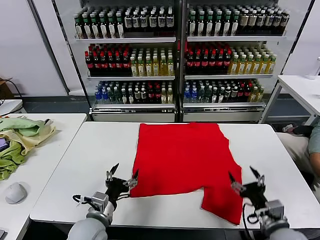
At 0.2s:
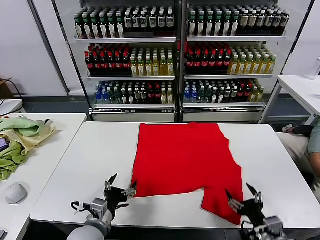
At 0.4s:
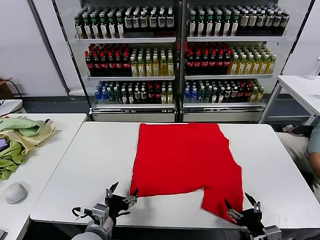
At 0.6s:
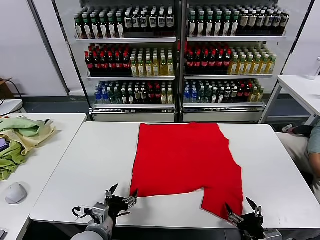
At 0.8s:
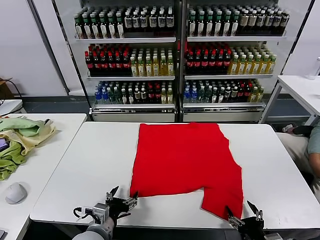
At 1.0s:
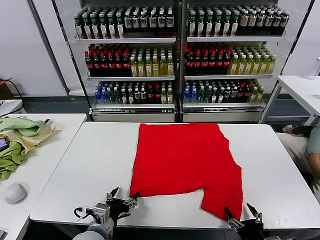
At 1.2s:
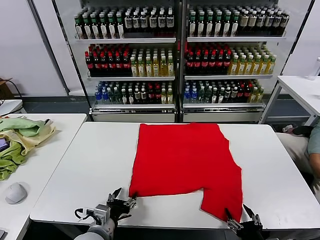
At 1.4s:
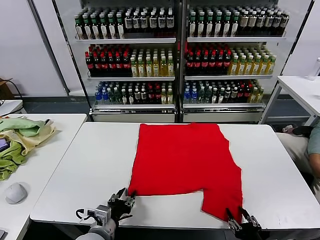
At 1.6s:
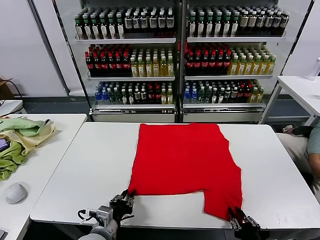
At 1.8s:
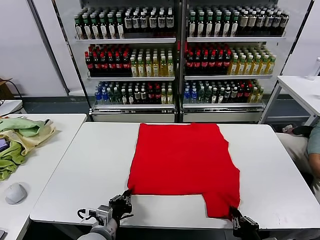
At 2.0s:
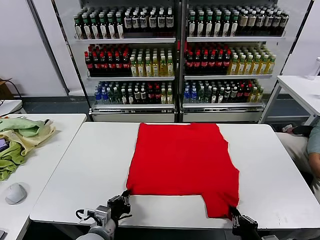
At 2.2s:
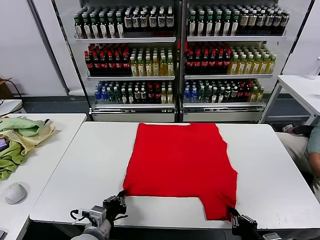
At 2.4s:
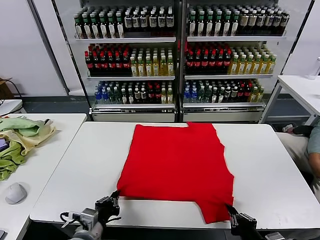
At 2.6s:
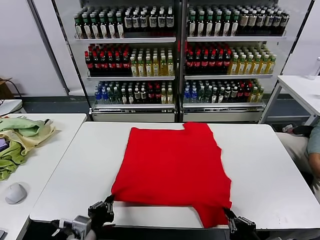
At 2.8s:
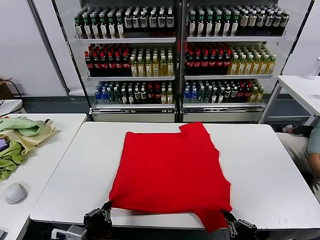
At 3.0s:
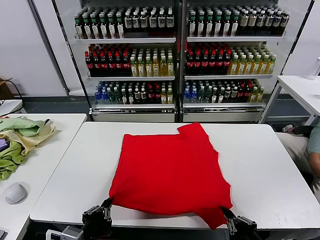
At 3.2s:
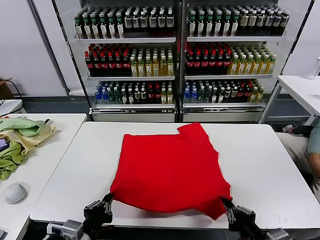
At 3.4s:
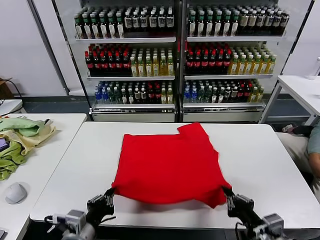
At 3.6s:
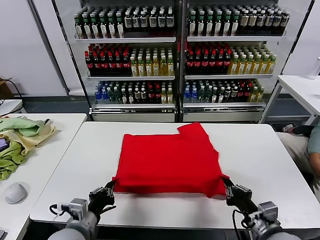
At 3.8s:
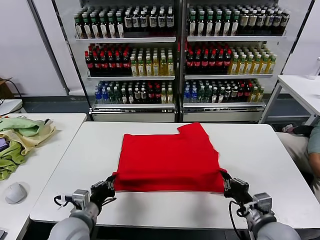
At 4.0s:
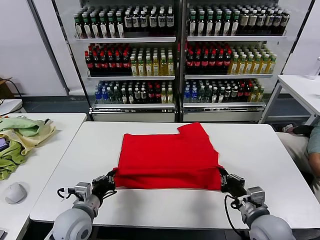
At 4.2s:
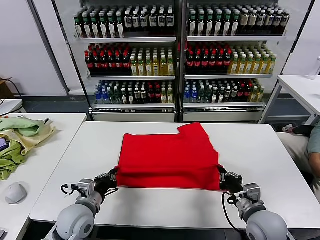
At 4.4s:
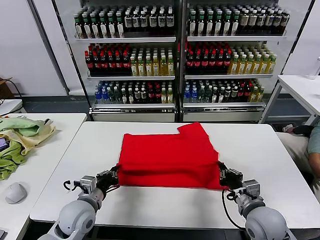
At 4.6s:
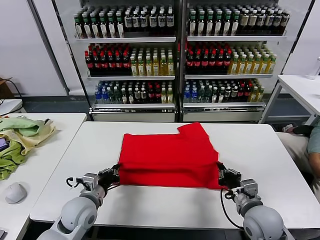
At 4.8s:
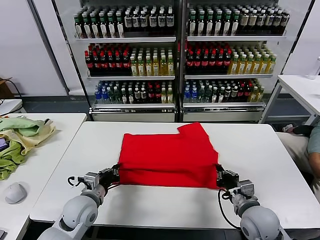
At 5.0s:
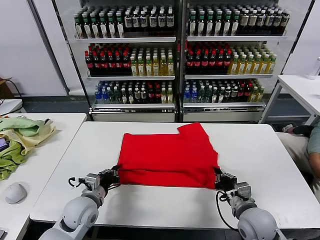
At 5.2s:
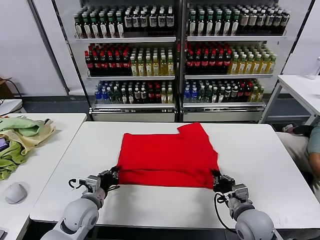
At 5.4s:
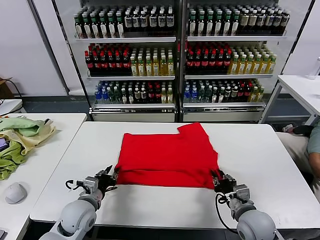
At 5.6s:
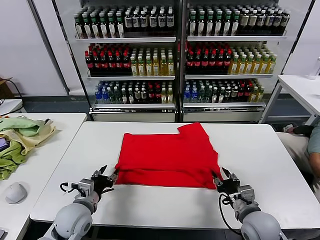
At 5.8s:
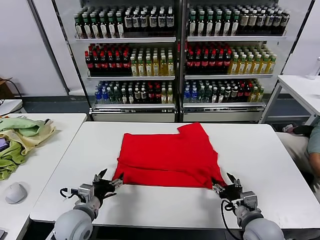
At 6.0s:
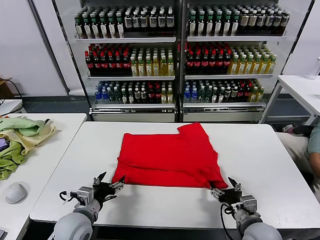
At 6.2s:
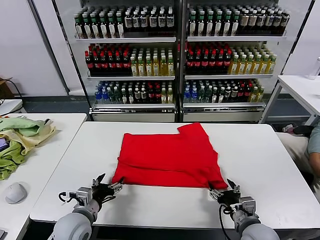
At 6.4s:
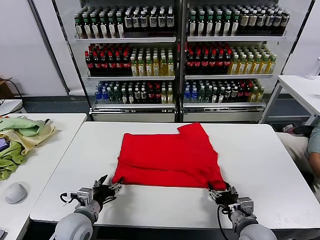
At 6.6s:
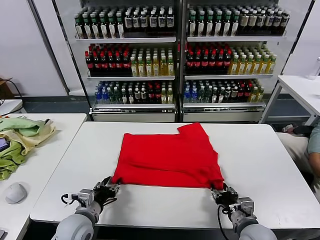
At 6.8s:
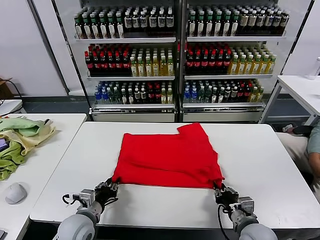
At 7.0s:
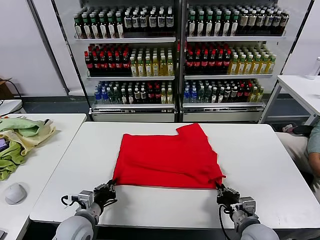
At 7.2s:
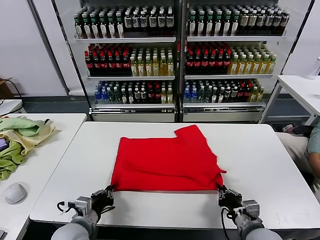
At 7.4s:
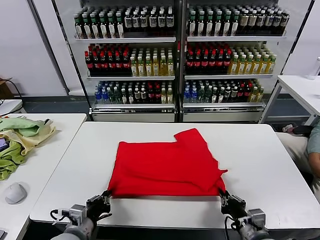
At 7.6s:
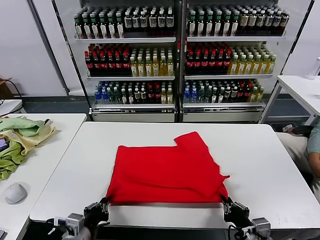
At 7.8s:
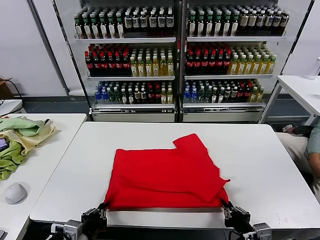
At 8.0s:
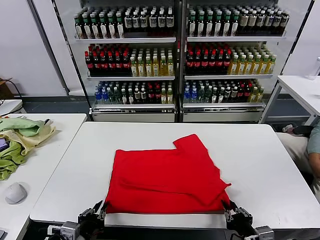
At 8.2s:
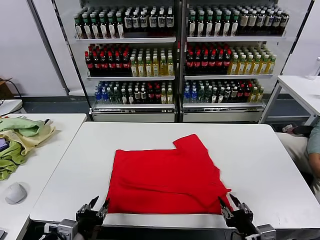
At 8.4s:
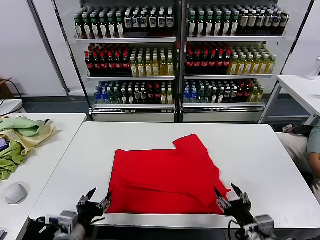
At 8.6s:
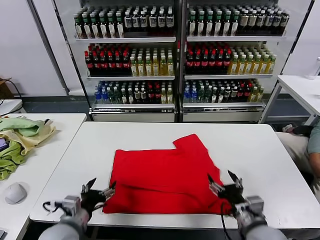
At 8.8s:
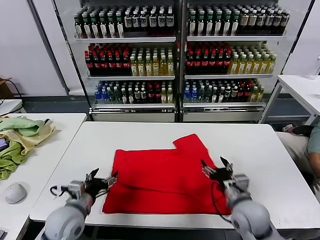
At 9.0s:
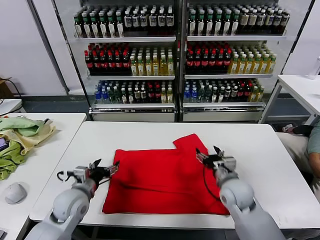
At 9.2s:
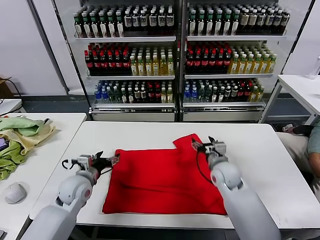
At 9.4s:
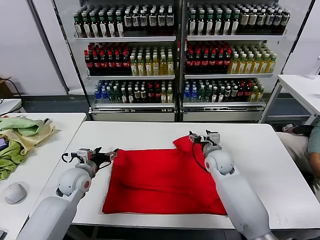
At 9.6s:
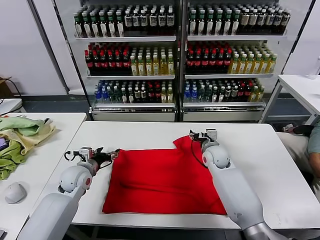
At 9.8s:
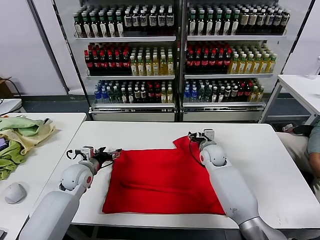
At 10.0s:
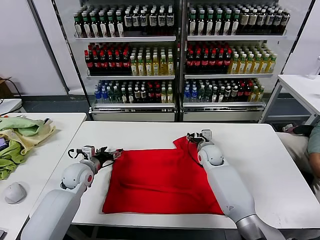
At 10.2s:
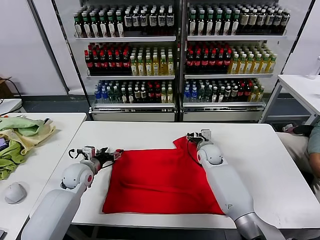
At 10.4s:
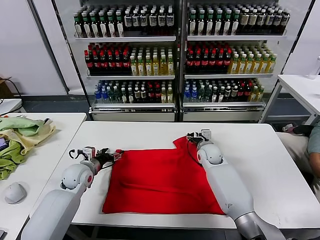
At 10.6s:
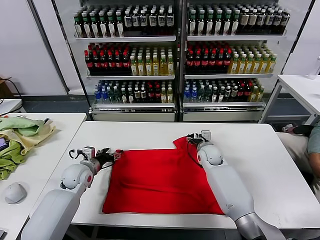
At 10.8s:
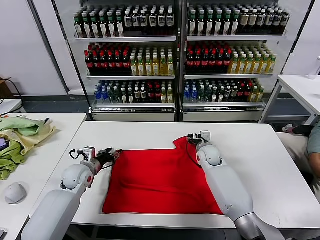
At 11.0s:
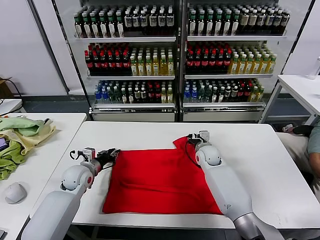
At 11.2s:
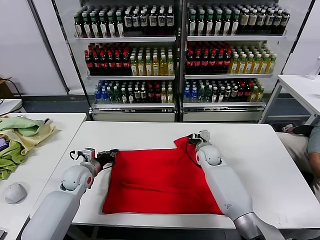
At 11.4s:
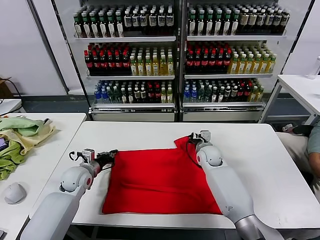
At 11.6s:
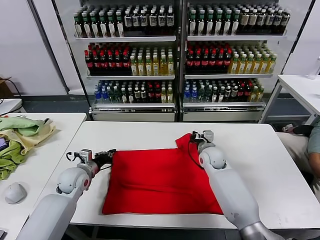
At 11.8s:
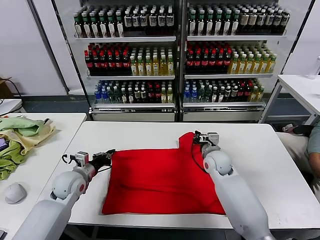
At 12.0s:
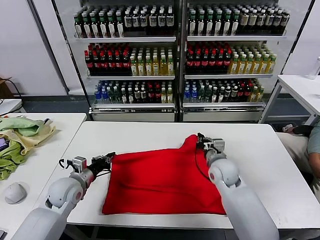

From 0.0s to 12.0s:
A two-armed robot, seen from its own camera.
Task of the whole recording: fold and organize the clothes.
Step, from 0.0s to 2.0s: use both grippers simultaneously to clamp the lower edge of the clothing fabric.
Step, from 2.2s to 5.4s: use both grippers to drag the lower edge of the fabric forward and fold it over the upper edge.
Step, from 5.6s to 8.0s: Drag the clothes downward with both gripper.
Step, from 8.2s to 11.2s: use both grippers simultaneously to clamp the upper edge of the clothing fabric.
From 1.6s to 3.0s: The right gripper heads upward, covering about 10 cm, while the left gripper is displaced upward and backward by approximately 15 cm.
From 3.0s to 4.4s: The right gripper goes roughly 15 cm forward, while the left gripper shifts about 20 cm forward and downward.
From 4.4s to 6.0s: The right gripper shifts by about 5 cm, and opens up; the left gripper opens up.
From 6.0s to 7.6s: The two grippers go approximately 10 cm backward. The left gripper closes up. Meanwhile the right gripper closes up.
From 7.6s to 9.0s: The right gripper travels forward by some 25 cm, and opens its fingers. Meanwhile the left gripper goes about 15 cm forward, and opens.
From 9.0s to 10.4s: The grippers both shift forward by approximately 15 cm.
From 10.4s to 12.0s: The right gripper is displaced backward by approximately 15 cm, and closes, while the left gripper is displaced backward by approximately 5 cm, and closes.

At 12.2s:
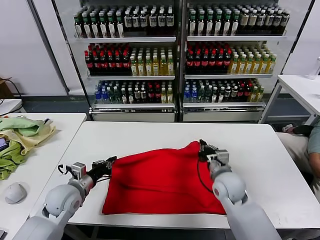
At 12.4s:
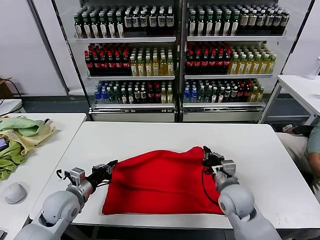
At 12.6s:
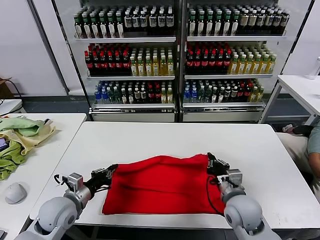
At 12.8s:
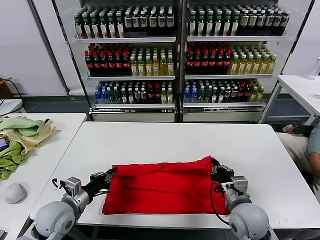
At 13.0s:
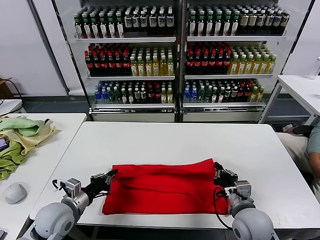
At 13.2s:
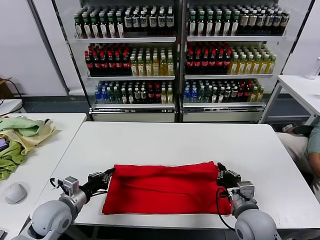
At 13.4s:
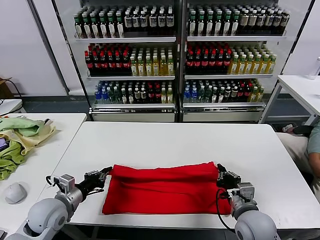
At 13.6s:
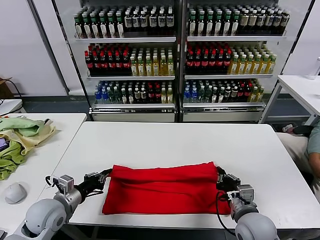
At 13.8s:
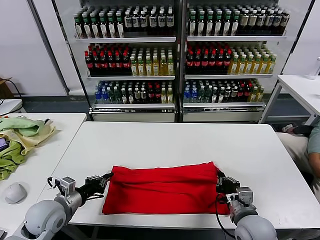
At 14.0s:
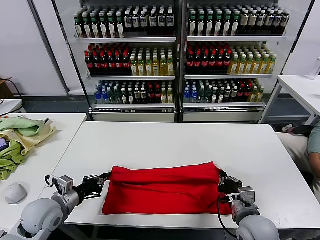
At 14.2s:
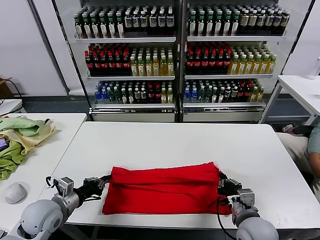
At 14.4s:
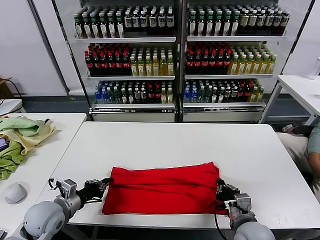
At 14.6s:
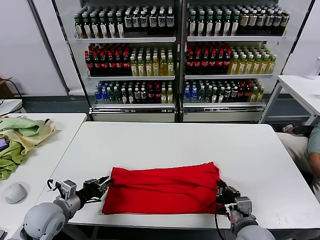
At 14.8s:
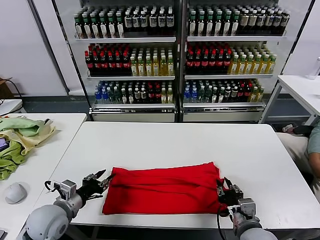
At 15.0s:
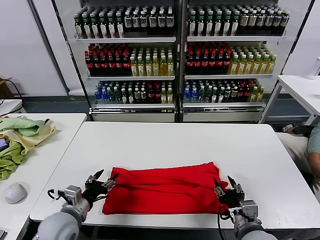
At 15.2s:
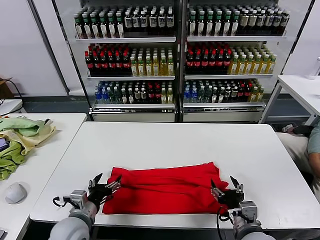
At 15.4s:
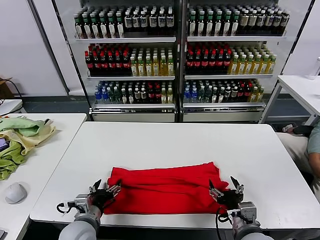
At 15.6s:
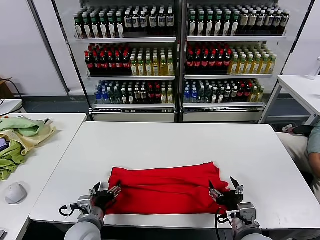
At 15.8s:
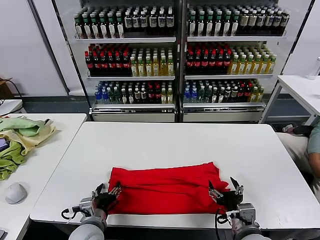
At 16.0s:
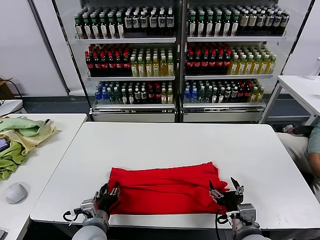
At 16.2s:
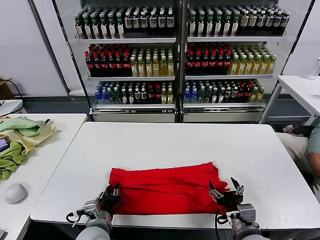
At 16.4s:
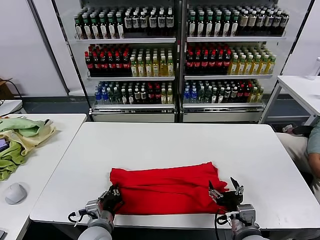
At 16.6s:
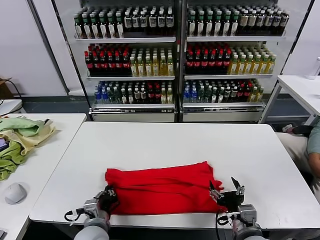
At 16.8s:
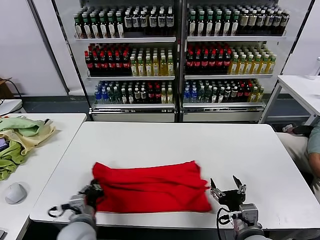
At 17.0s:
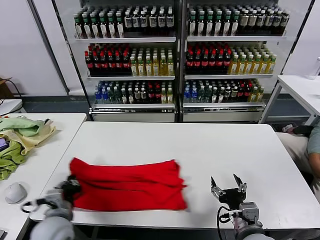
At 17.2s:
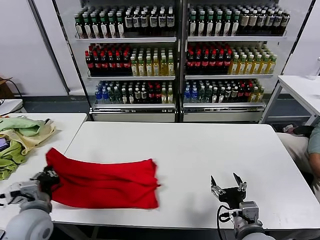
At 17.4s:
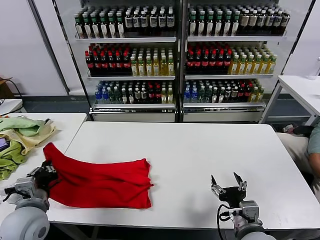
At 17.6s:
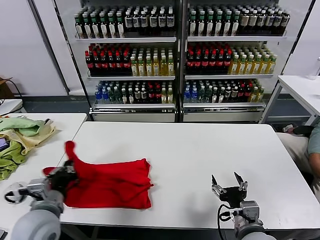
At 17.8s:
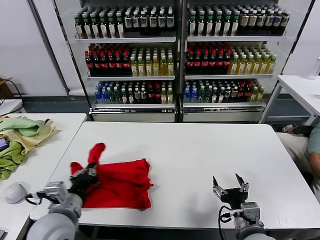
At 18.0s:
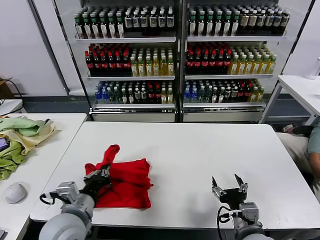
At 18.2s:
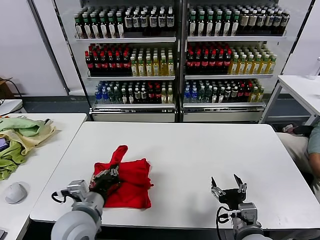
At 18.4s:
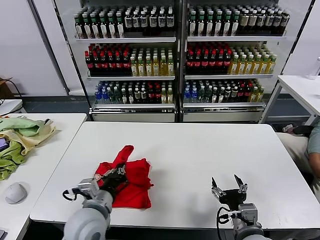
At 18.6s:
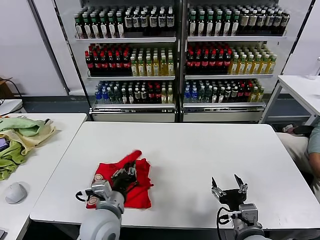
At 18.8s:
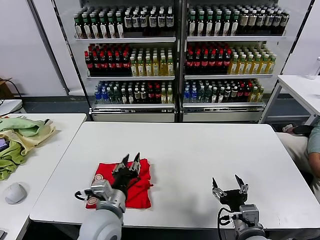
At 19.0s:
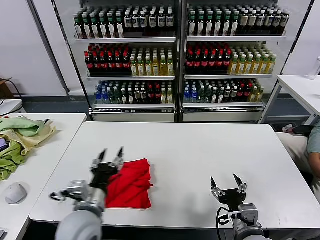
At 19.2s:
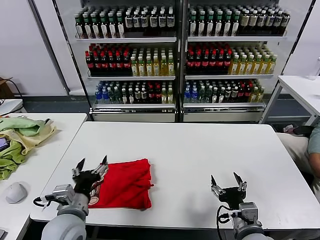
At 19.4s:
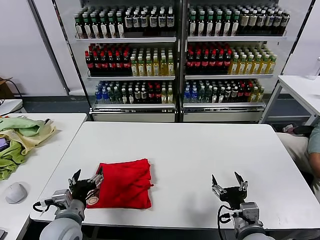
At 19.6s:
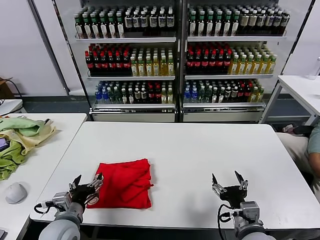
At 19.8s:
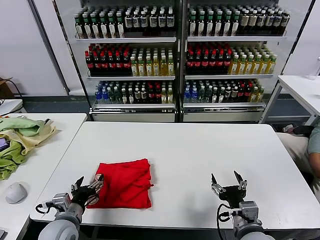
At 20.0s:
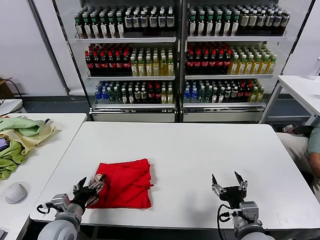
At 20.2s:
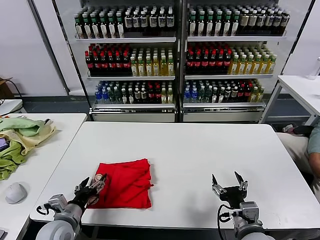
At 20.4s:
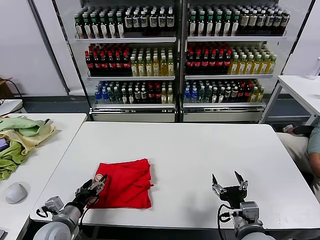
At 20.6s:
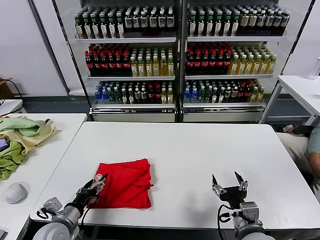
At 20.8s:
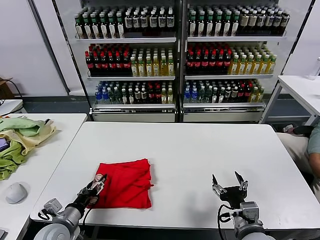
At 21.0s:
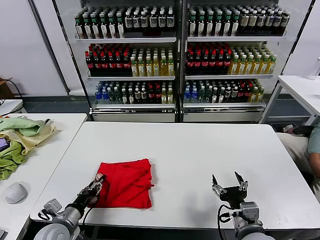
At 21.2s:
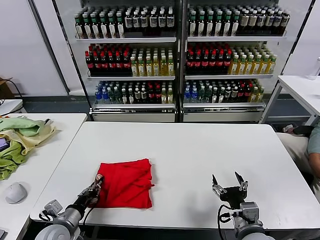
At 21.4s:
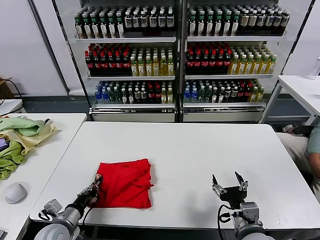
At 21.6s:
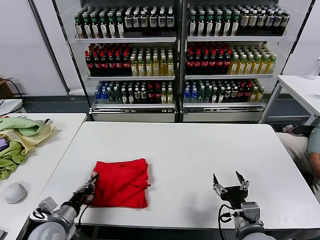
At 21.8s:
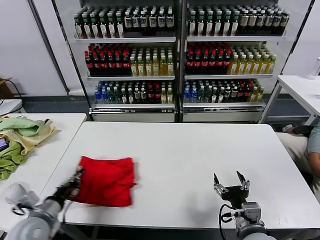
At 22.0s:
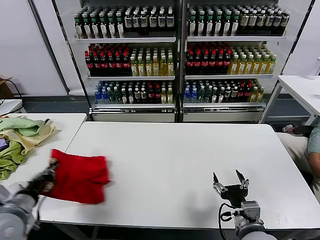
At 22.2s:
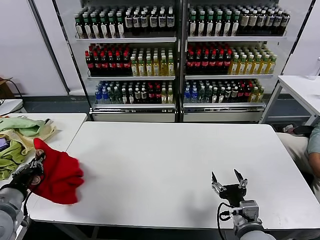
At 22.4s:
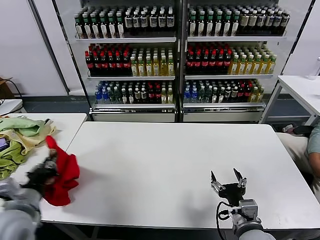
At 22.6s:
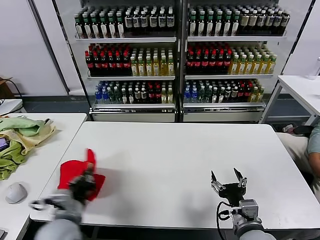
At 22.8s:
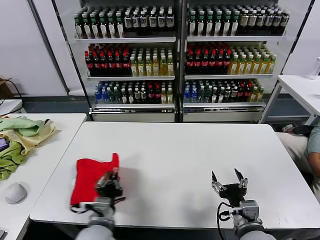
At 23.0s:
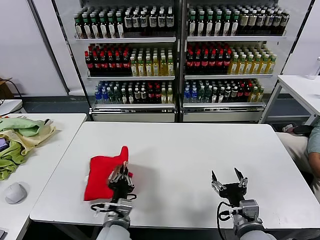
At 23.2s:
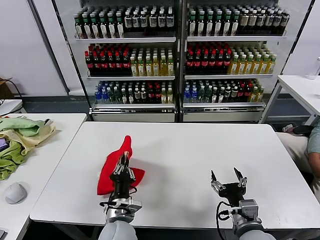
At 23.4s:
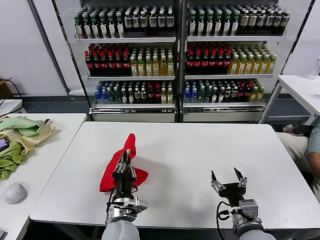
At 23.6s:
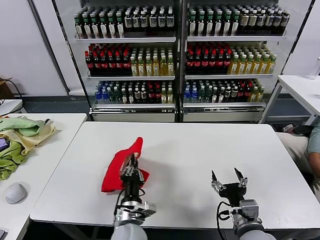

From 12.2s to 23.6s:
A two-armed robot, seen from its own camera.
Task of the whole recording: fold and organize the clothes.
Step, from 12.2s to 15.0s: use both grippers to drag the upper edge of the fabric backward and fold it over the lower edge.
Step, from 15.2s to 16.4s: use the left gripper to clamp the left edge of the fabric.
Step, from 16.6s to 18.6s: use the left gripper to drag the left edge of the fabric to the left and folds it over the right edge.
From 12.2s to 13.6s: The left gripper shifts roughly 5 cm backward. The right gripper goes roughly 10 cm backward.
From 13.6s to 15.0s: The left gripper ends up approximately 5 cm from where it was, and opens up. The right gripper opens.
From 15.0s to 16.4s: The left gripper goes some 10 cm to the right, and closes up.
From 16.4s to 17.8s: The left gripper goes roughly 15 cm upward and to the left.
From 17.8s to 19.4s: The left gripper shifts roughly 5 cm downward, moves approximately 10 cm to the right and comes back, and opens its fingers.
From 19.4s to 20.8s: The left gripper heads downward and to the left, covering approximately 10 cm.
From 20.8s to 22.2s: The left gripper is displaced upward and to the left by about 15 cm, and closes its fingers.
From 22.2s to 23.6s: The left gripper goes roughly 35 cm to the right and downward.
